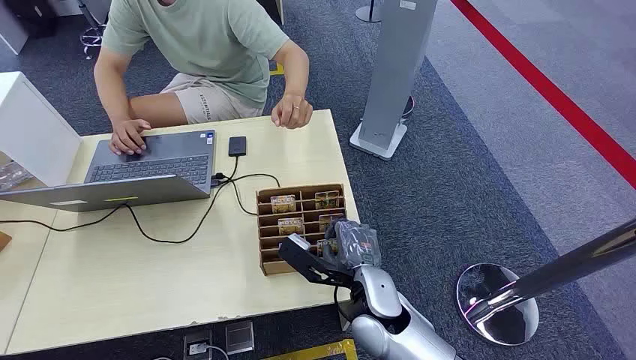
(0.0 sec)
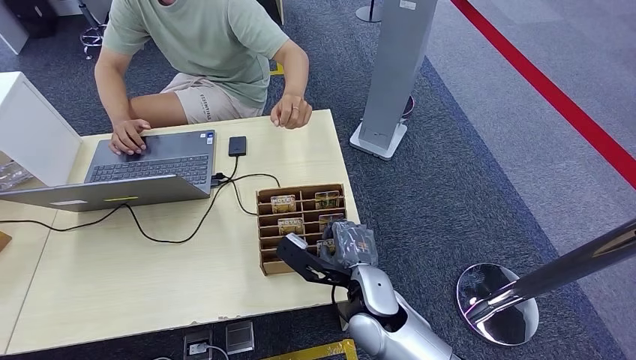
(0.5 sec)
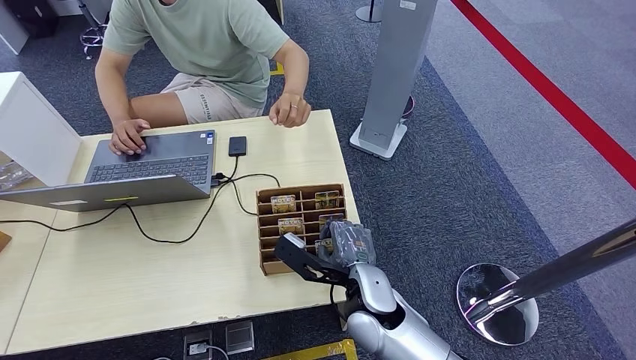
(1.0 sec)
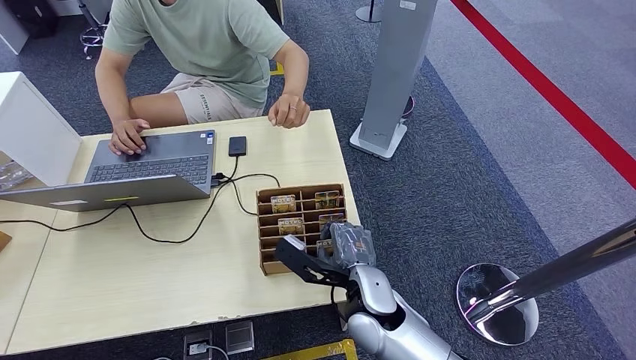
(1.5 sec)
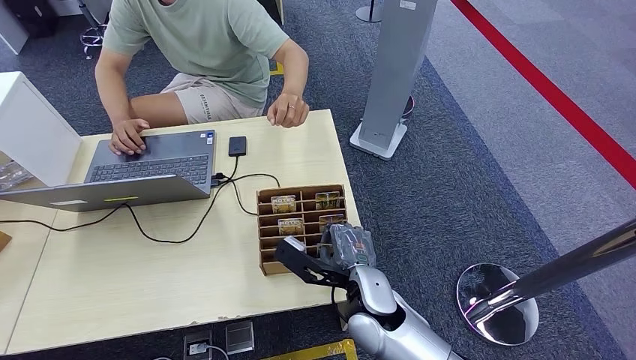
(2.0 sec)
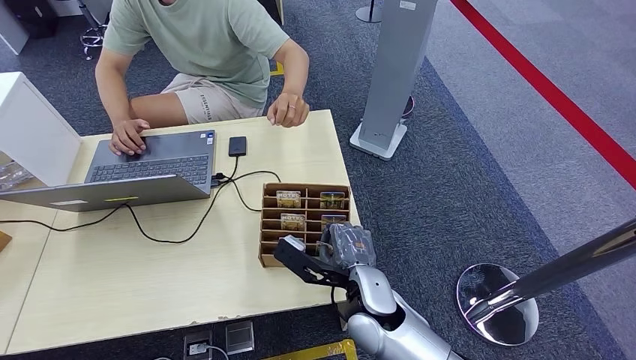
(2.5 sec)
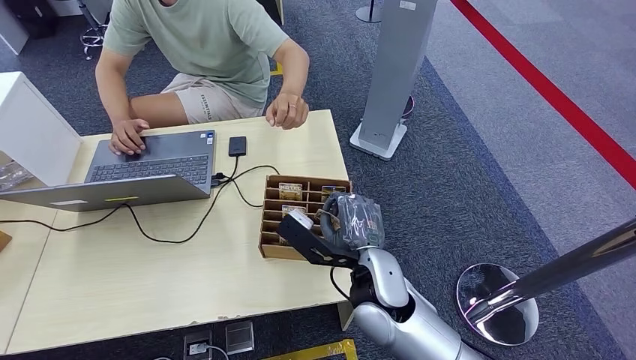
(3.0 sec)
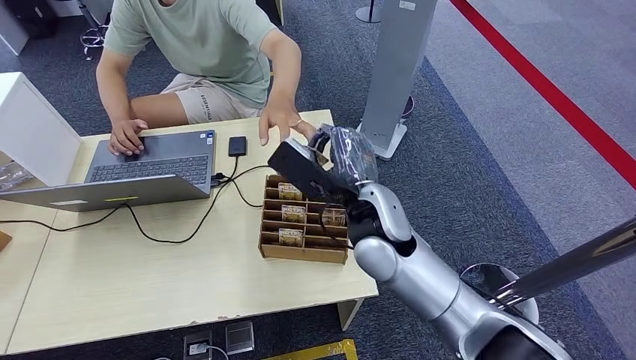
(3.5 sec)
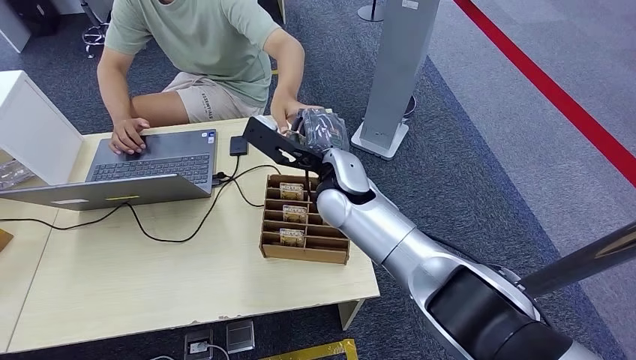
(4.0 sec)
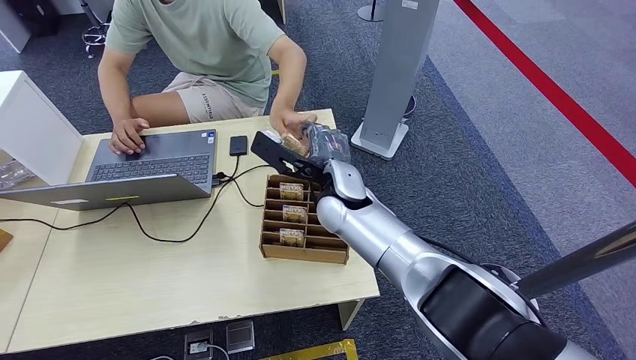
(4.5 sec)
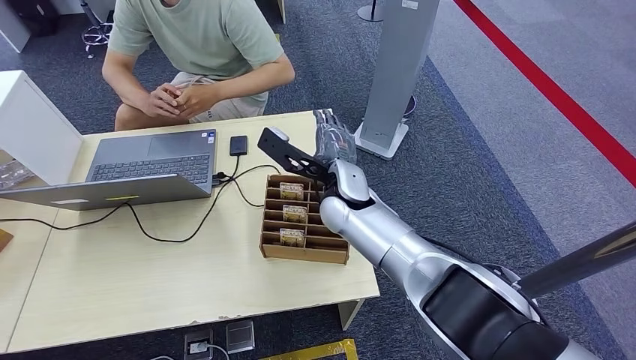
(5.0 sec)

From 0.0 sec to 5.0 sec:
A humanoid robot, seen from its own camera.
Step, from 0.0 sec to 3.0 sec: Pick up the key card from the card box.
Step, from 4.5 sec to 5.0 sec: Hand the key card to the target.
